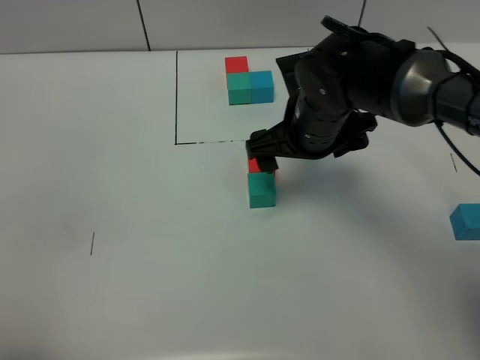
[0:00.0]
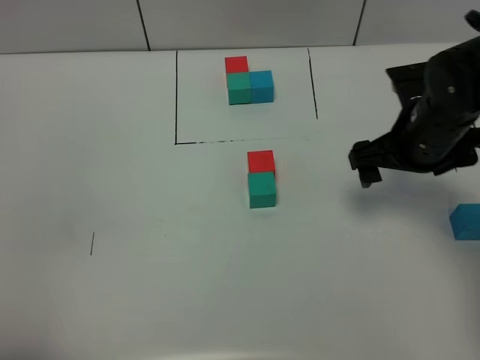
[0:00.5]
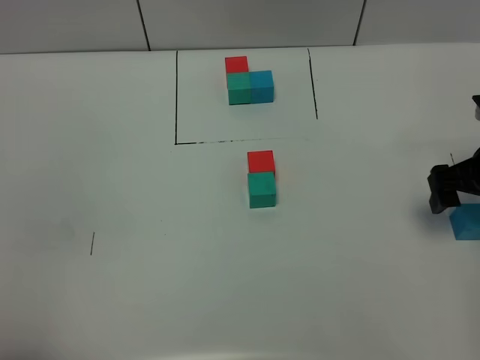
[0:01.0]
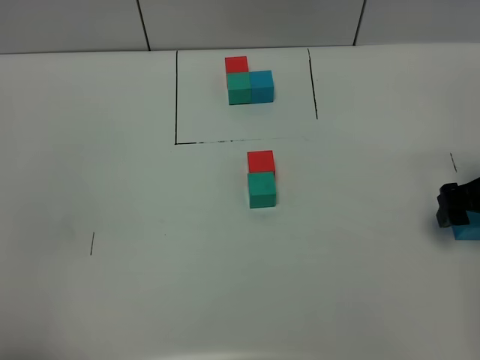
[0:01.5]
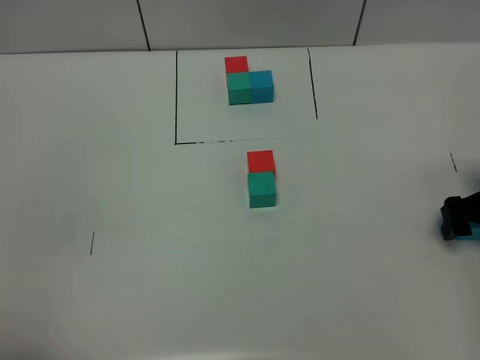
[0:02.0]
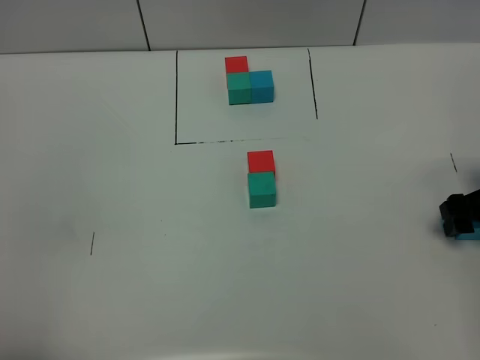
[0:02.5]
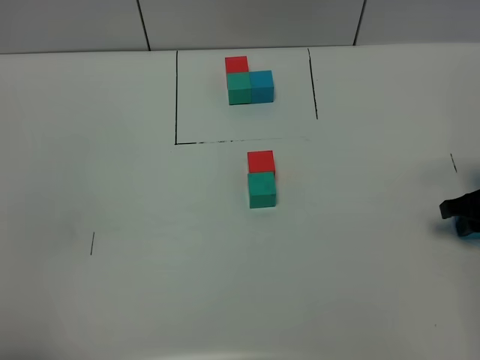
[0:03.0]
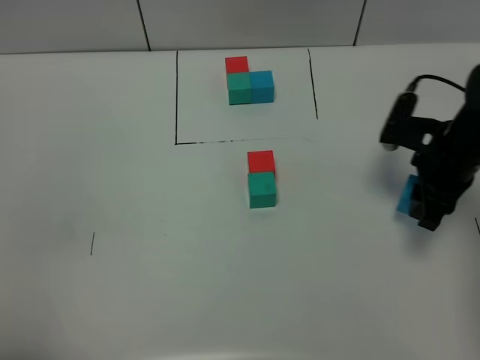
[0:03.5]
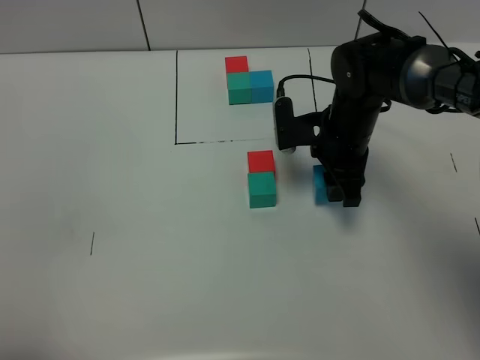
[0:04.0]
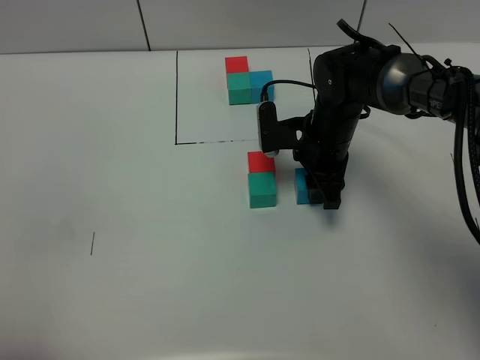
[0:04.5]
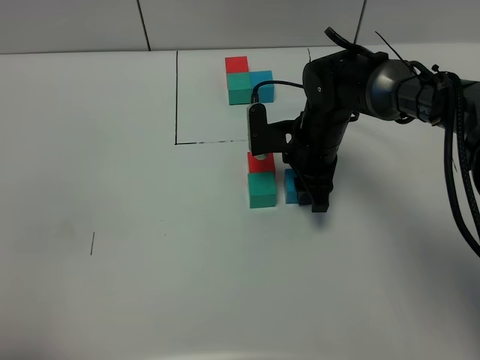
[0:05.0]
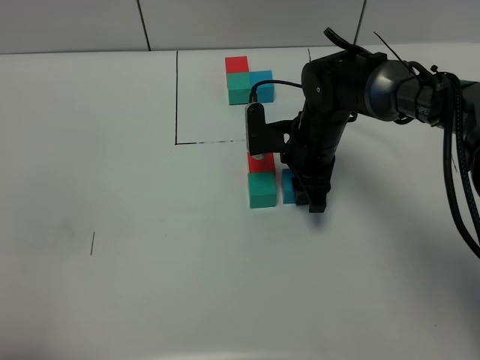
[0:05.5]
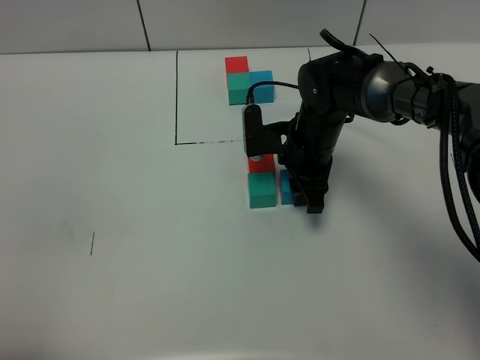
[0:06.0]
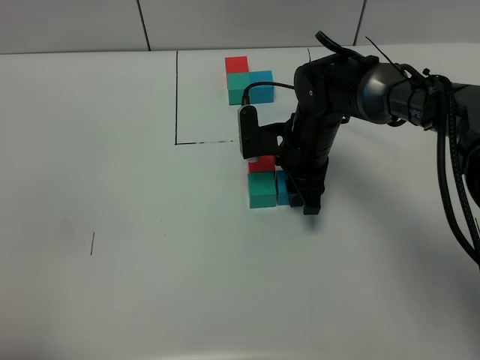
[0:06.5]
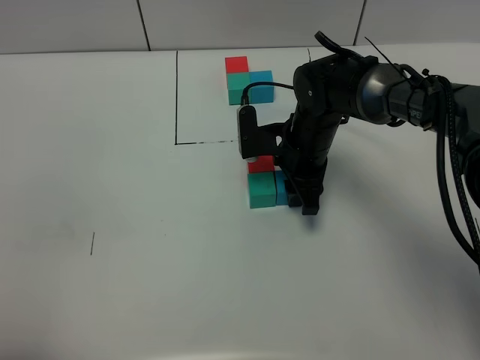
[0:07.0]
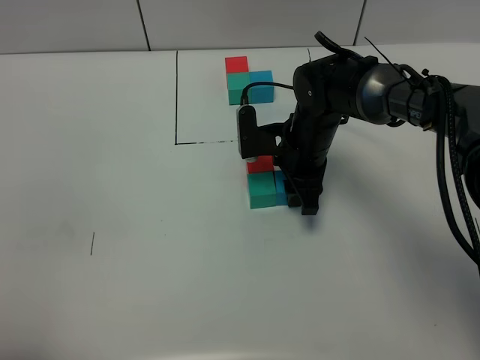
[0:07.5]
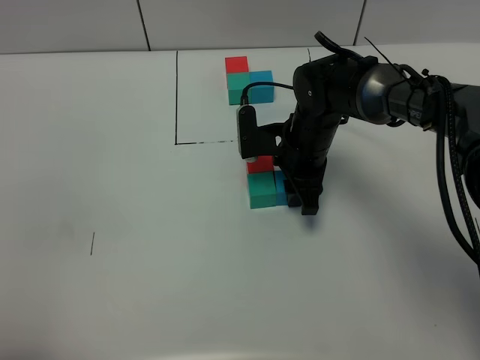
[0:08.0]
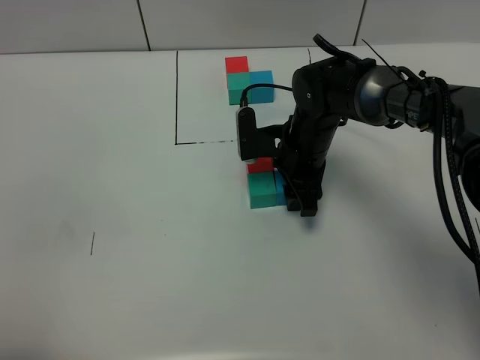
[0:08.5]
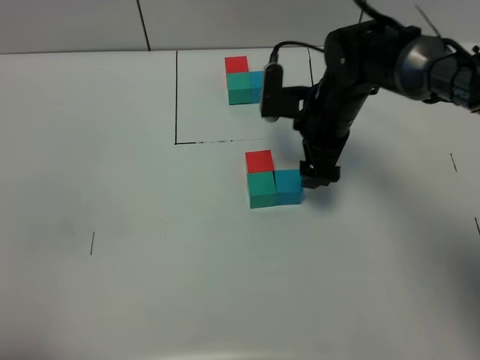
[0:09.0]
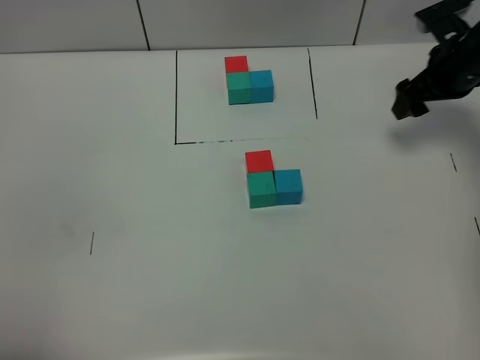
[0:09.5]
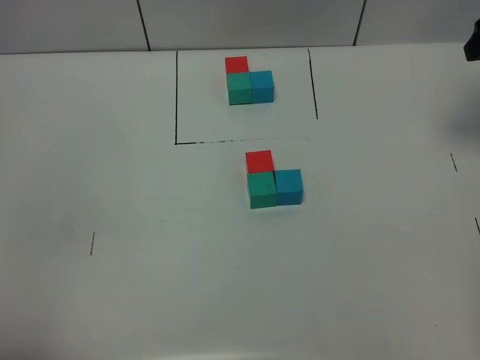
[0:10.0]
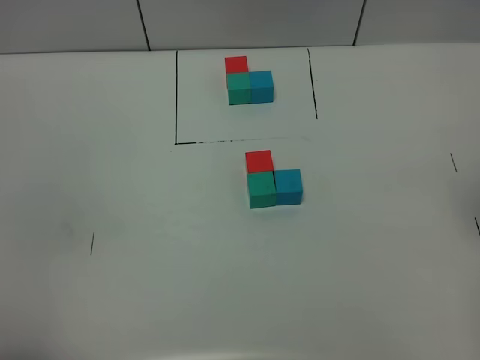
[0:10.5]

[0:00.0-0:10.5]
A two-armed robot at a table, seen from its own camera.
Task of the whole recording: According to the building block template in front, assemble the scattered blocks together.
Step, 0:00.0 to 0:08.5: Put the blue build block on the right of the green build block.
0:00.0 to 0:02.0: The right gripper moves to the right, about 25 cm.
0:02.0 to 0:04.0: The right gripper travels to the left and forward by some 25 cm, and closes up.
0:04.0 to 0:06.5: The right gripper shifts by about 5 cm.
0:06.5 to 0:08.5: Both grippers stay about where they are.
0:08.5 to 0:10.5: The right gripper shifts about 40 cm to the right, upward and backward, and opens its fingers.

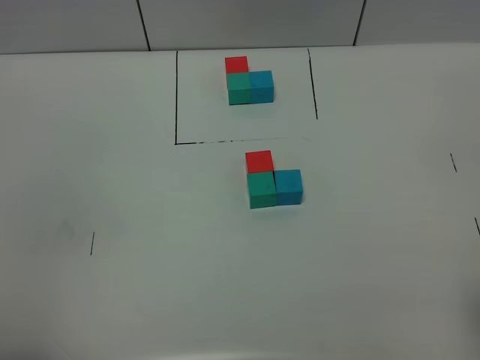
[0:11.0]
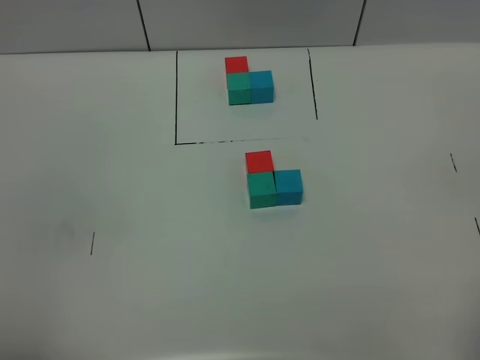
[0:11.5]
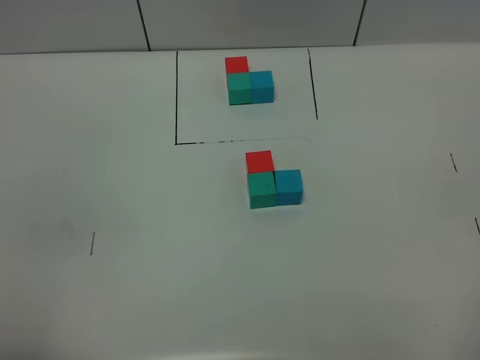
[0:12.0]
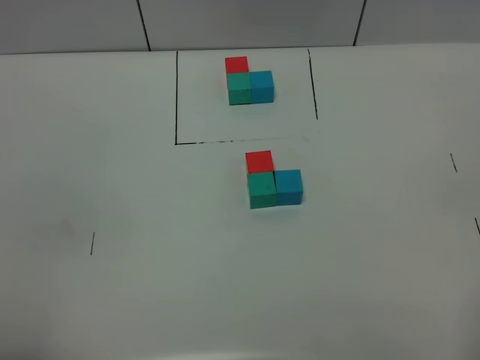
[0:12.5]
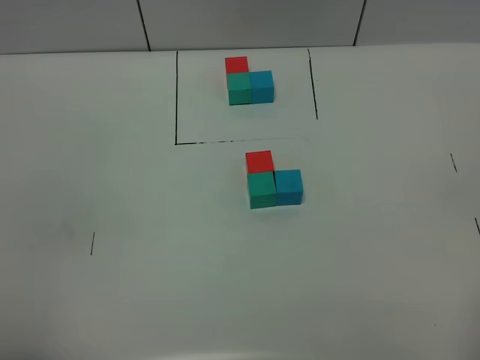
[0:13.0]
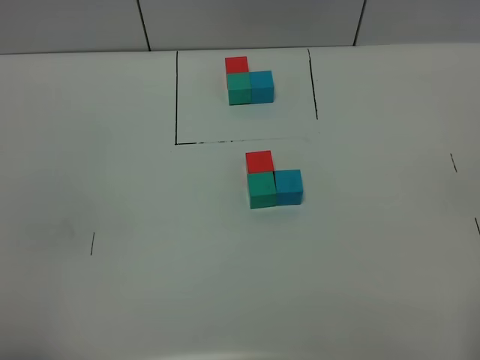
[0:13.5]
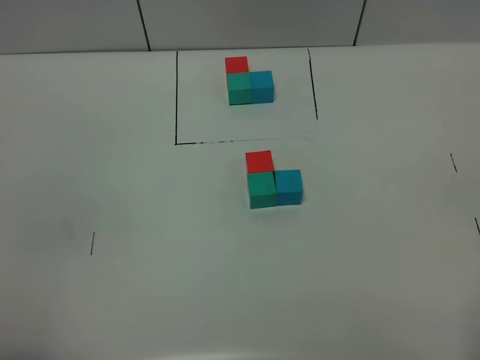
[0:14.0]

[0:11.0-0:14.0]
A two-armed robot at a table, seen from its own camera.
Task of the whole recording: According to the building block template in front, assemble the scattered blocks together.
0:12.5 to 0:14.0: Neither gripper changes place.

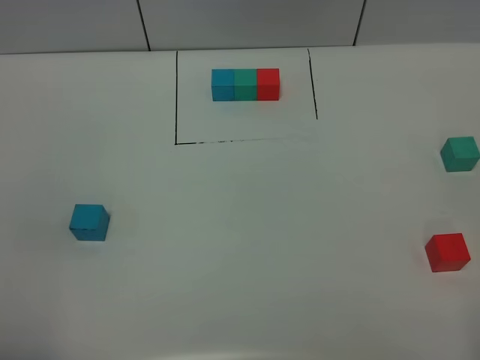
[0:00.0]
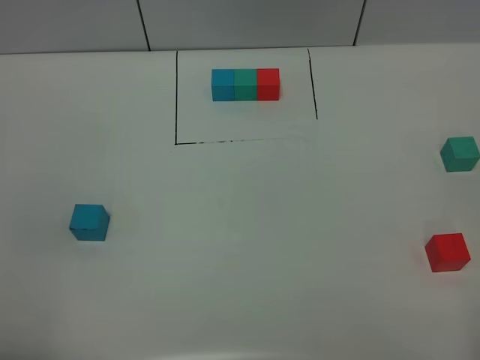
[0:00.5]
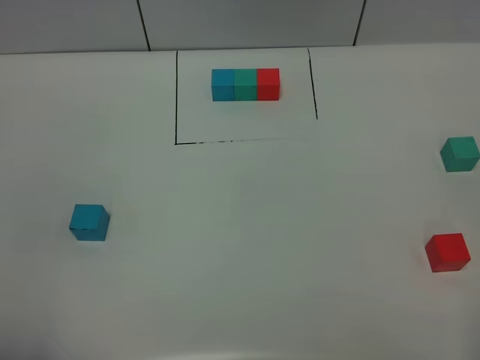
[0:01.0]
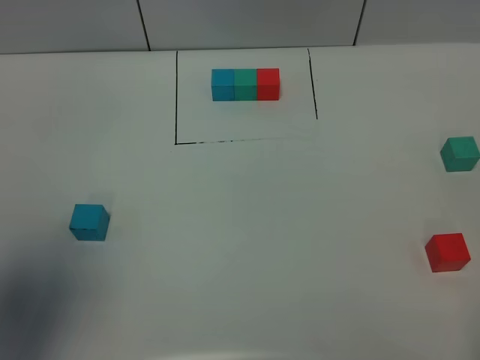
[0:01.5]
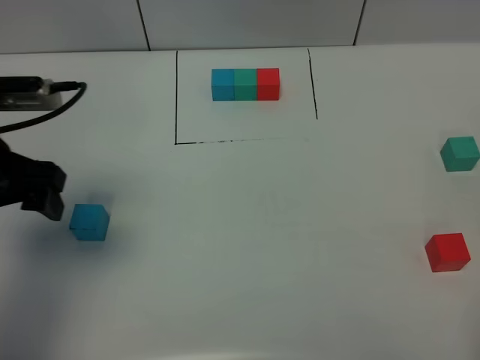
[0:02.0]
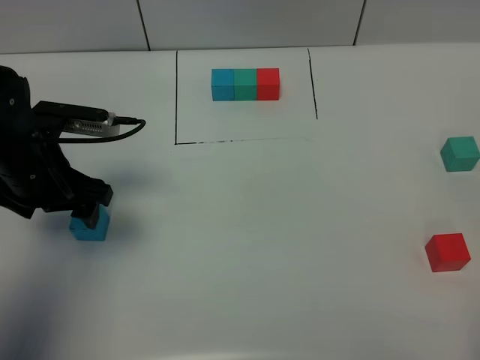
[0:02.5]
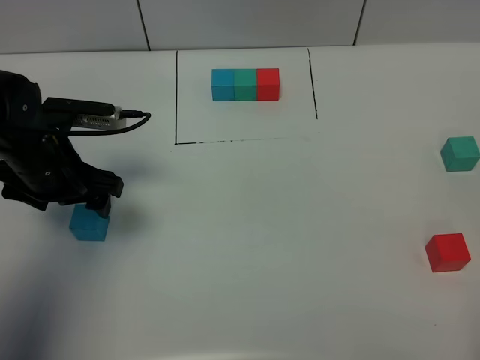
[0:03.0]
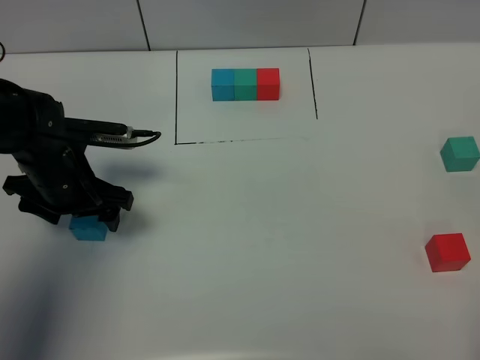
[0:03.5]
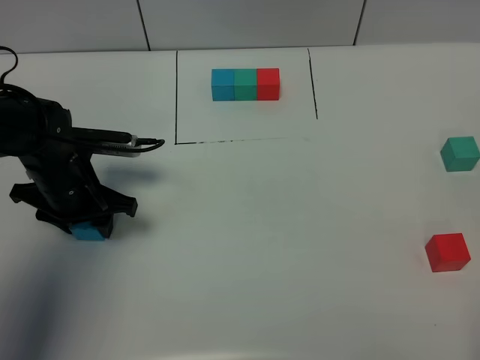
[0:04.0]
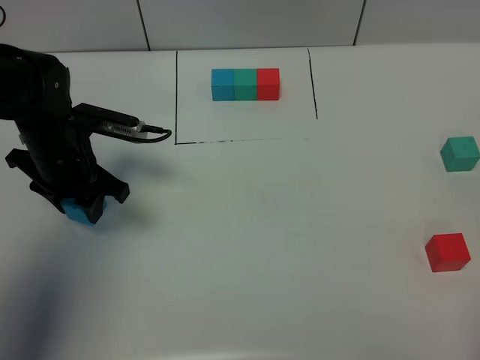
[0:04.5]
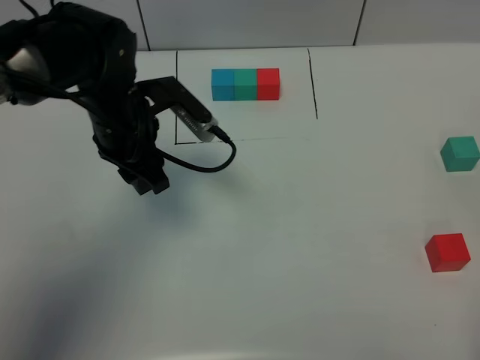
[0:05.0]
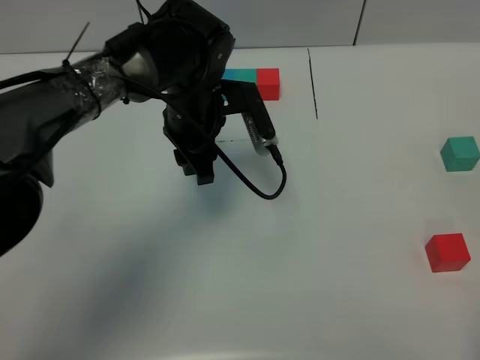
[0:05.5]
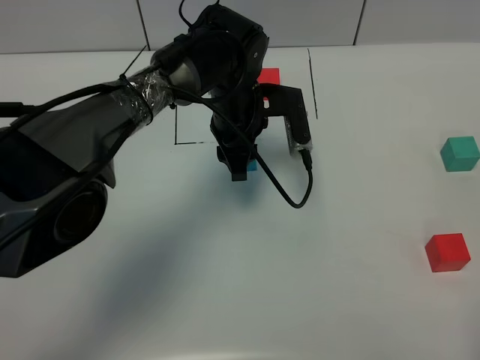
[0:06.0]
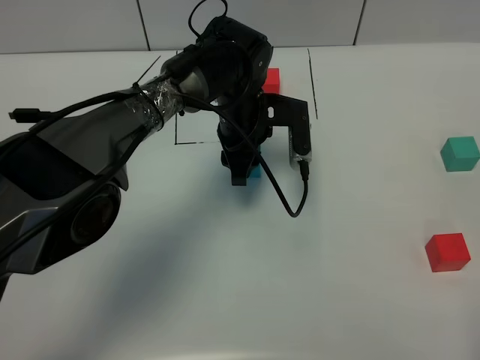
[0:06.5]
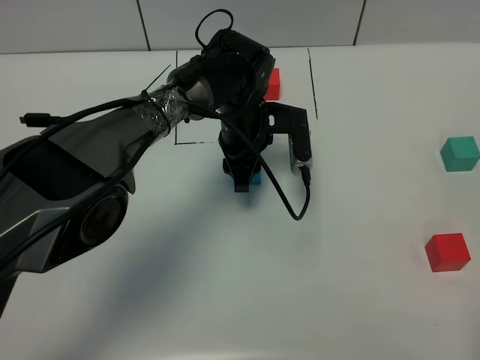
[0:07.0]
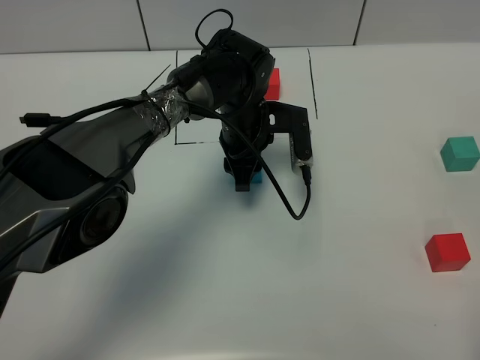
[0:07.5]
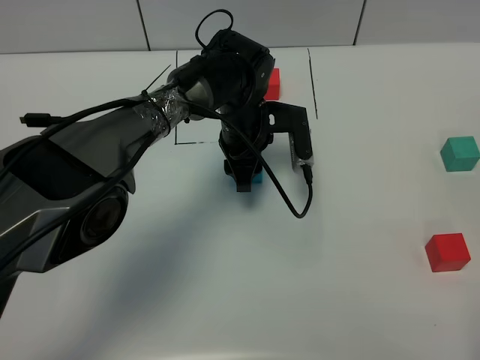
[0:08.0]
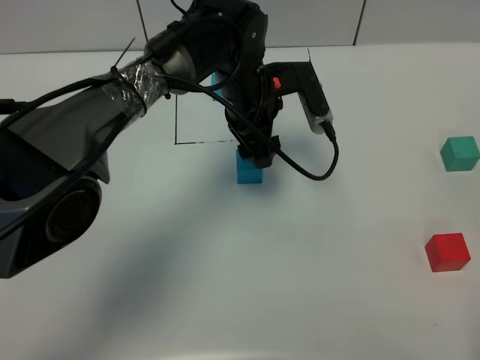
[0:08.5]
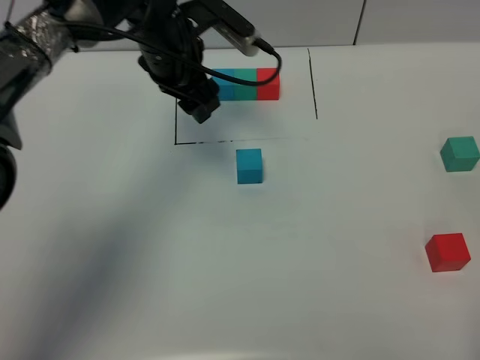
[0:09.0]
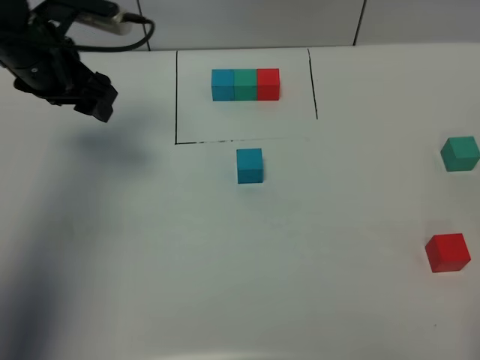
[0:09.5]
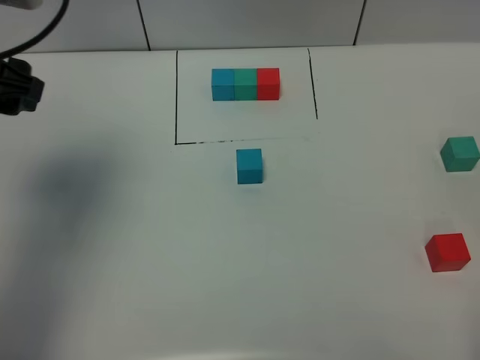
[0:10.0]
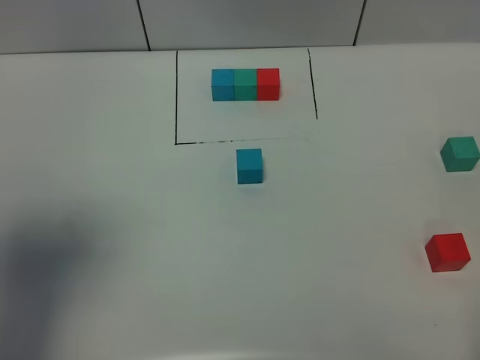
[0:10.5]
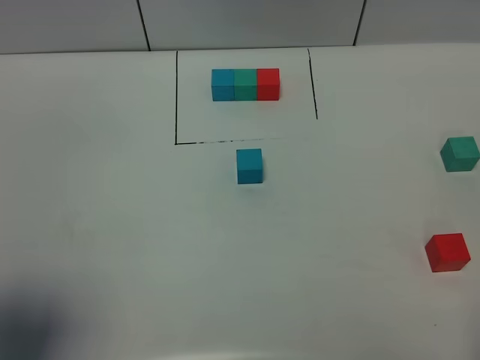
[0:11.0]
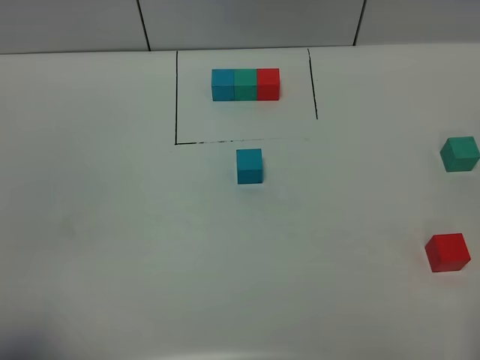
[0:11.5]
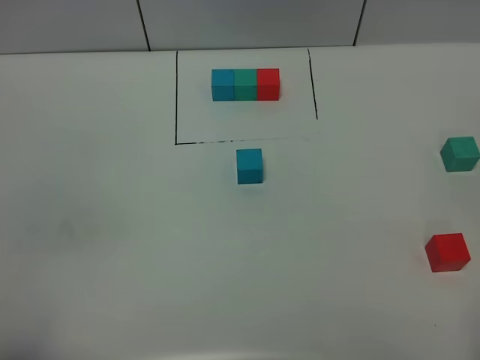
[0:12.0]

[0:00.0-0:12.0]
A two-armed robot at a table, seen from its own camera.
Task of the whole recording: According to the building block template in front, assemble the scattered blocks together.
Step, 0:00.0 to 0:08.0: Put the blue build block in the center of the table.
0:00.0 to 0:02.0: The left gripper heads forward, covering approximately 25 cm.
0:02.0 to 0:04.0: The left gripper moves downward and forward, about 15 cm, and closes its fingers.
0:04.0 to 0:06.0: The left gripper heads to the right and forward, covering approximately 25 cm.
0:06.0 to 0:08.0: There are only small adjustments of the grippers.
0:08.0 to 0:10.0: The left gripper goes about 35 cm to the left, upward and backward, and opens.
0:10.0 to 0:12.0: The left gripper goes approximately 30 cm backward.
